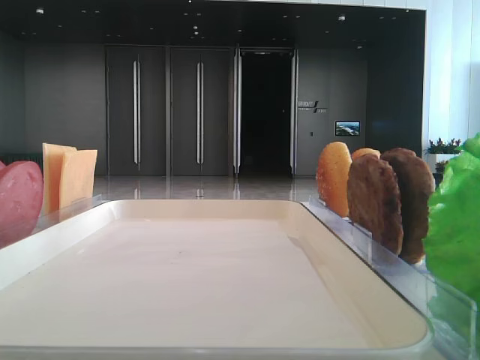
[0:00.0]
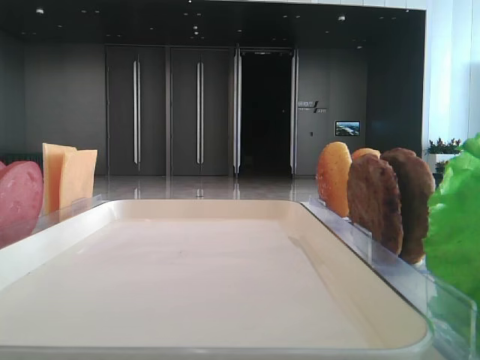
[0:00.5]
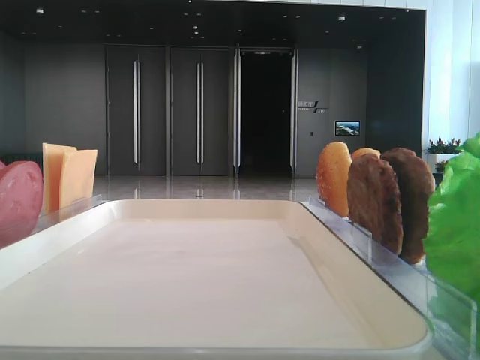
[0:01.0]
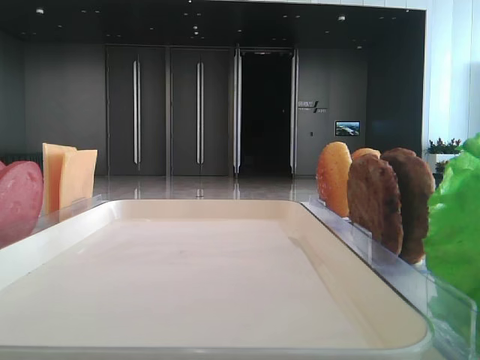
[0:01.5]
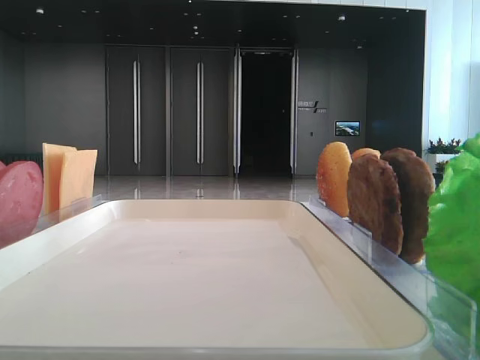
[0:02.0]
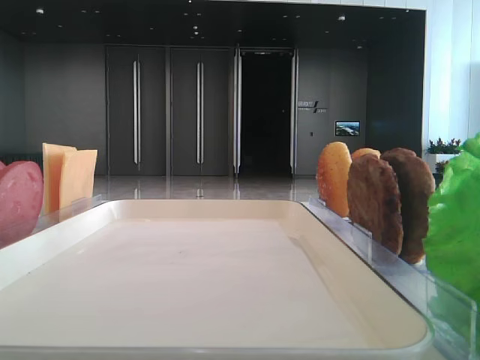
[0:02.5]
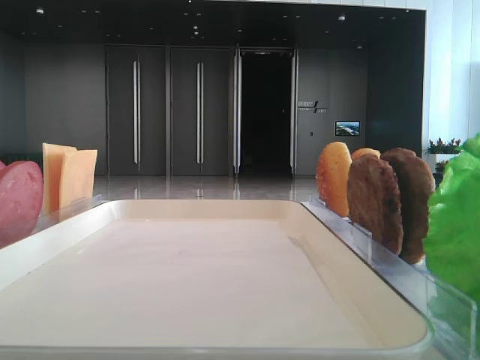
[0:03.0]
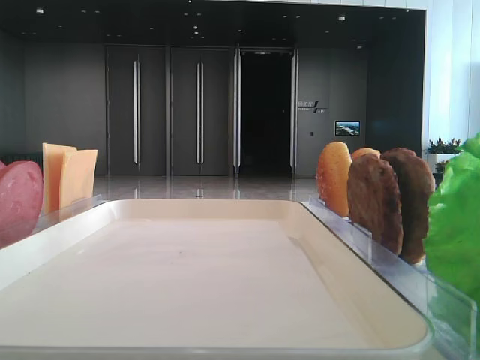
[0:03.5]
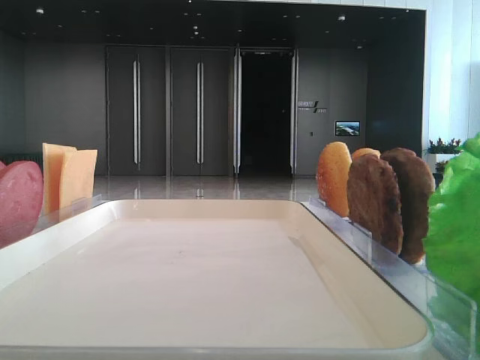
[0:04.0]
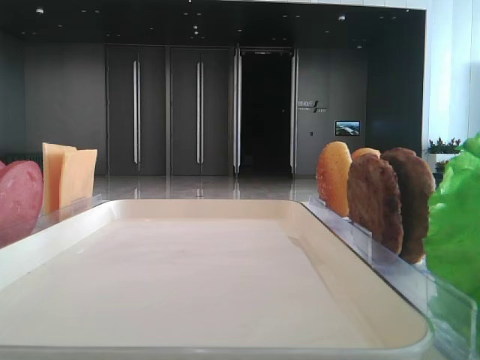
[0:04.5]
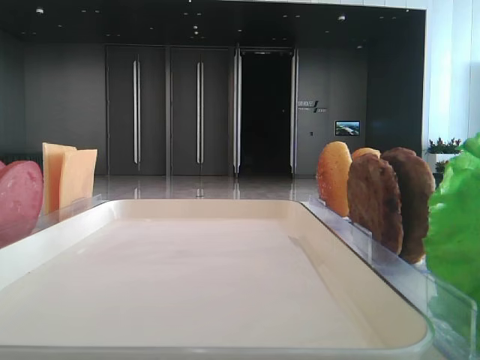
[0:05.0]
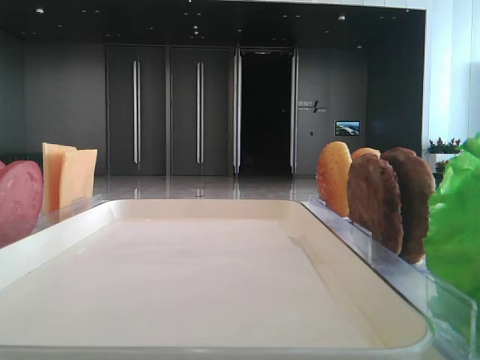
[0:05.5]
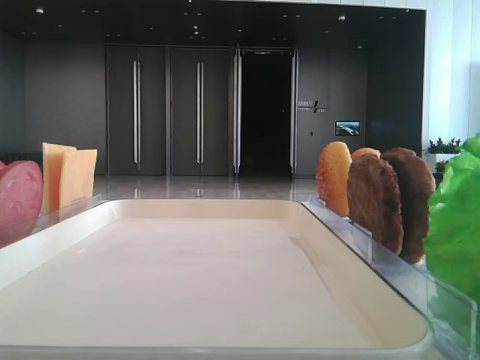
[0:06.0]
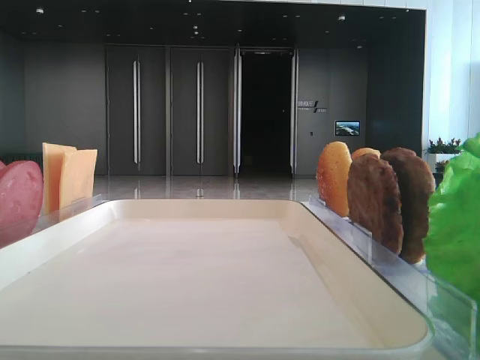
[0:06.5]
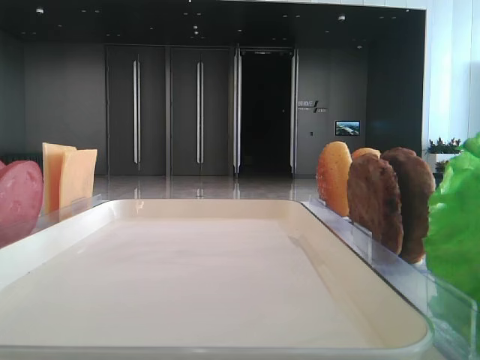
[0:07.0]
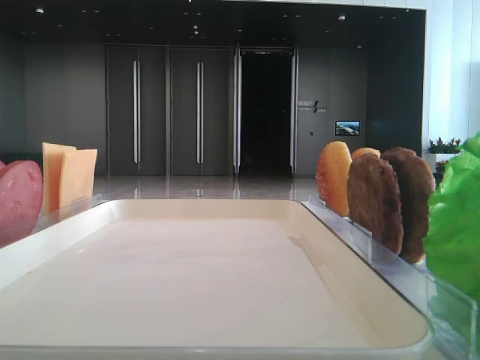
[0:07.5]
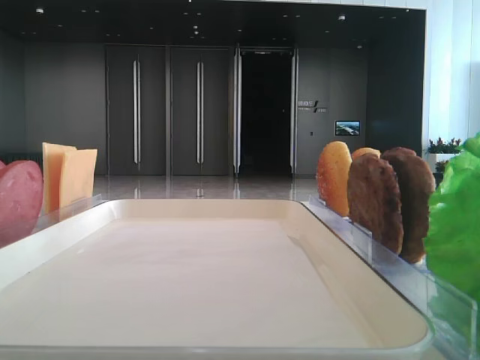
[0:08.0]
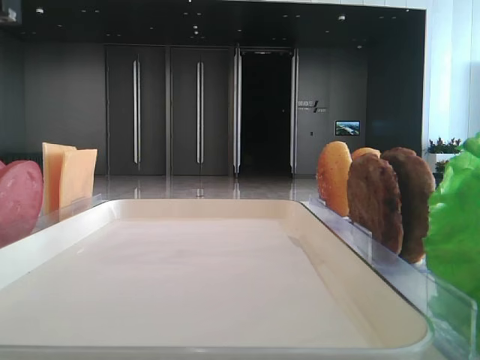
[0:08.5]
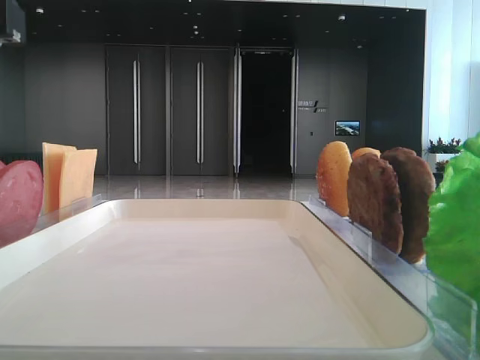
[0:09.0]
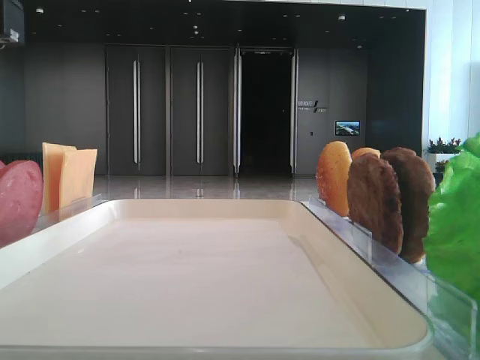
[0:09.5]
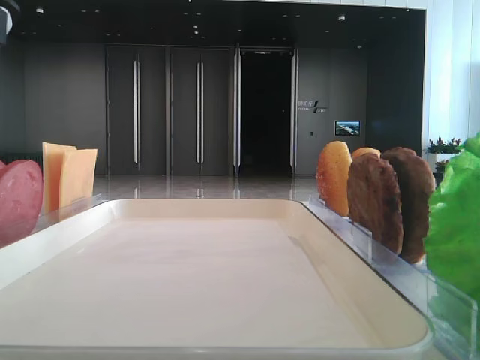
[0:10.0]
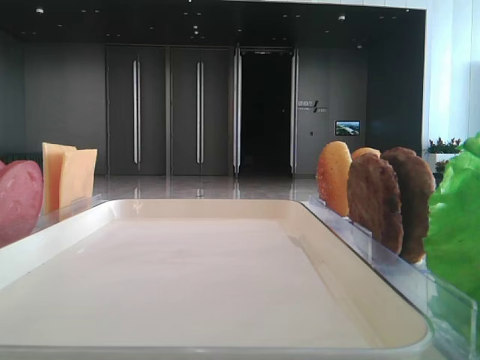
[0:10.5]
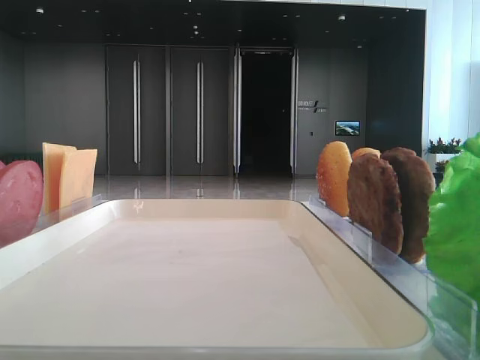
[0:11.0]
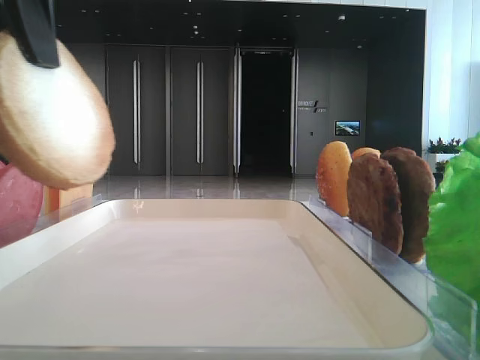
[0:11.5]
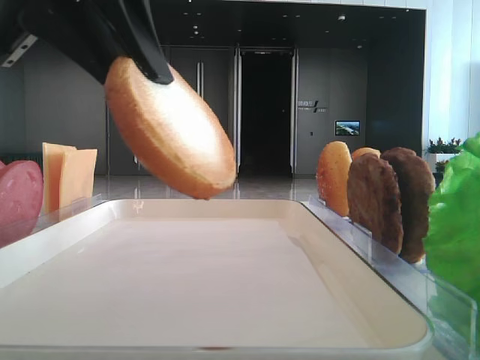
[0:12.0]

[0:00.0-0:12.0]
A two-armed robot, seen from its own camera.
0:10.0 to 0:12.0: The left gripper is displaced to the right by about 5 cm.

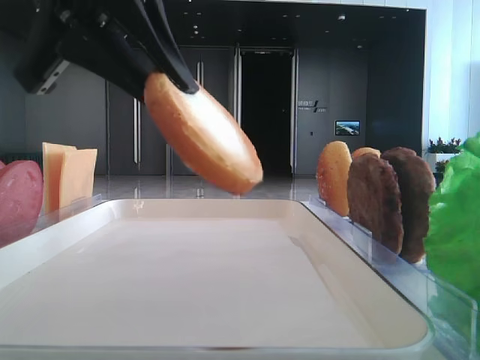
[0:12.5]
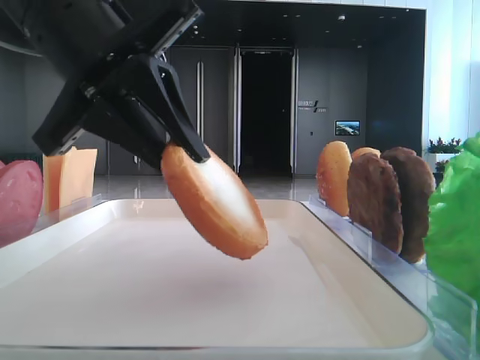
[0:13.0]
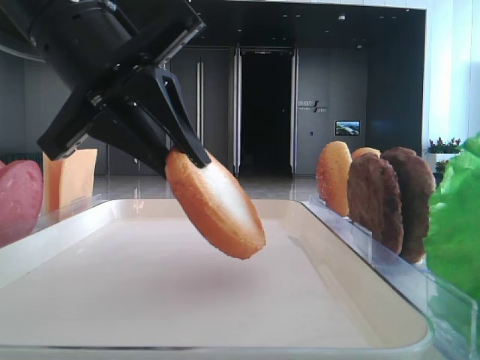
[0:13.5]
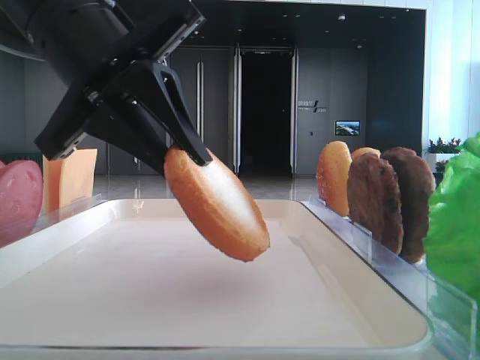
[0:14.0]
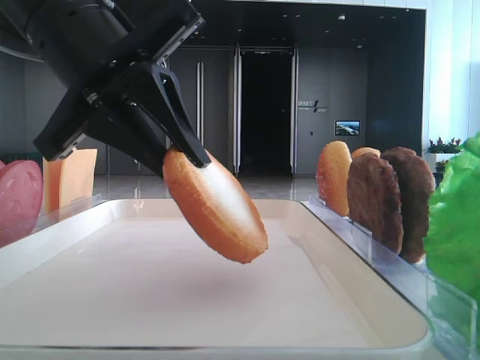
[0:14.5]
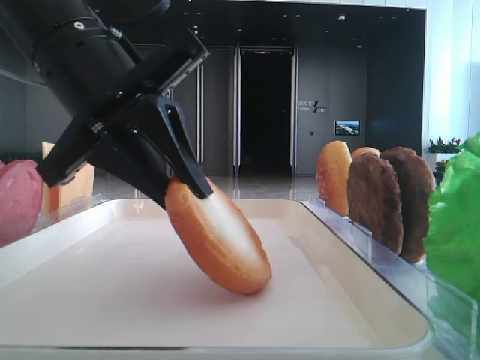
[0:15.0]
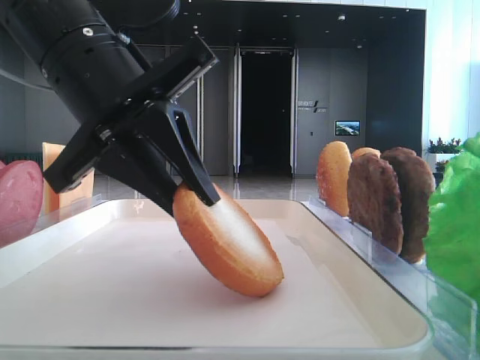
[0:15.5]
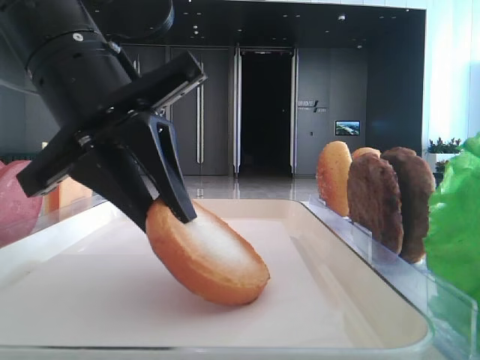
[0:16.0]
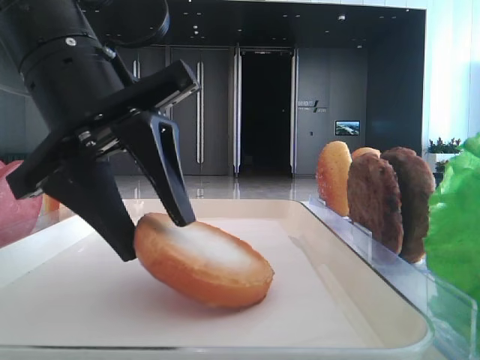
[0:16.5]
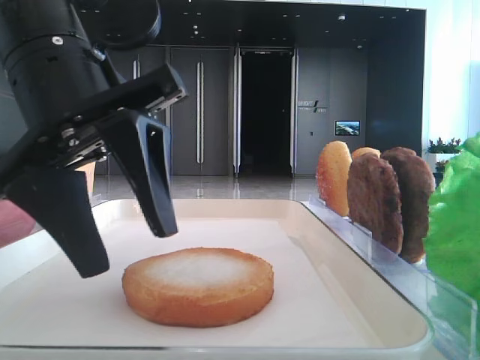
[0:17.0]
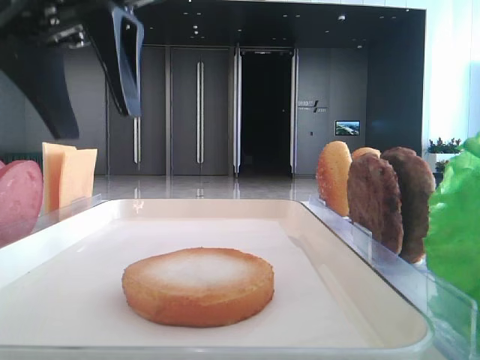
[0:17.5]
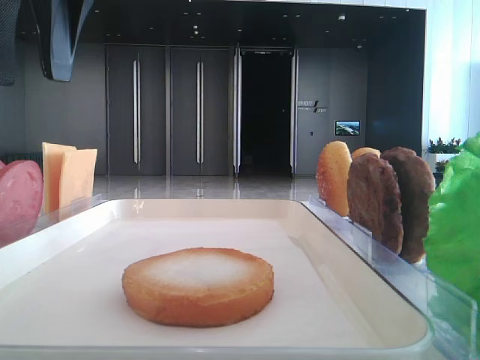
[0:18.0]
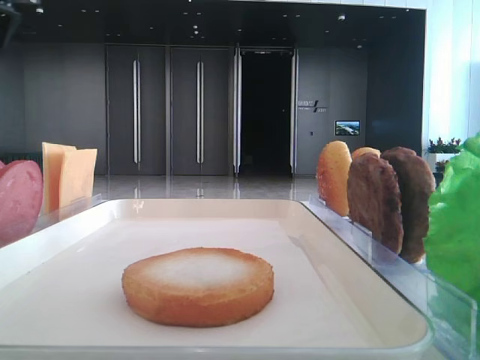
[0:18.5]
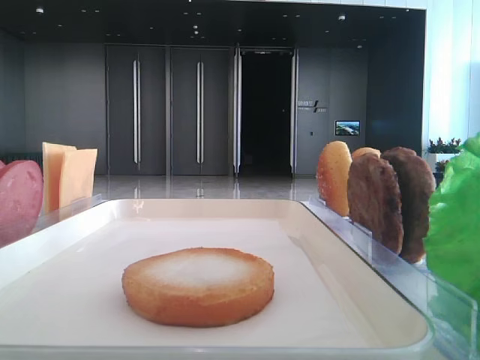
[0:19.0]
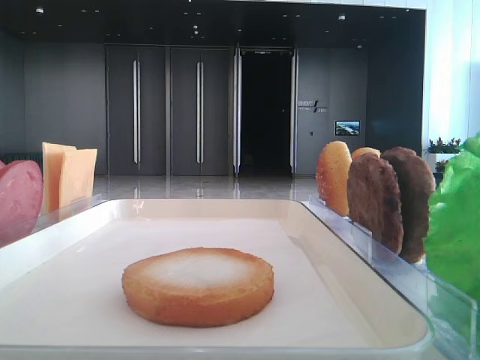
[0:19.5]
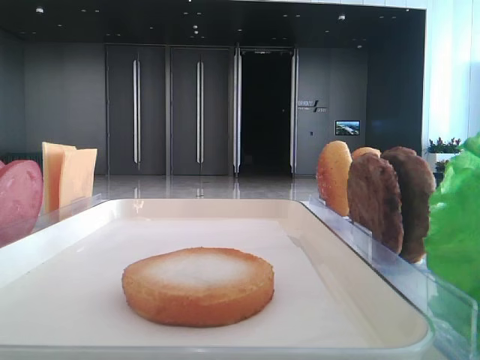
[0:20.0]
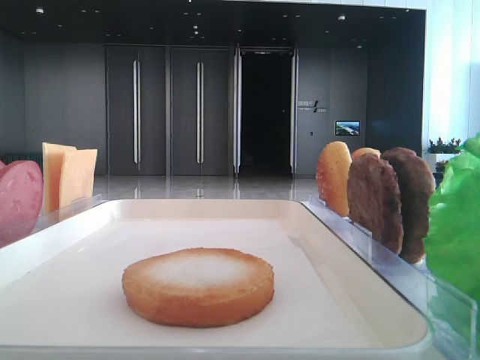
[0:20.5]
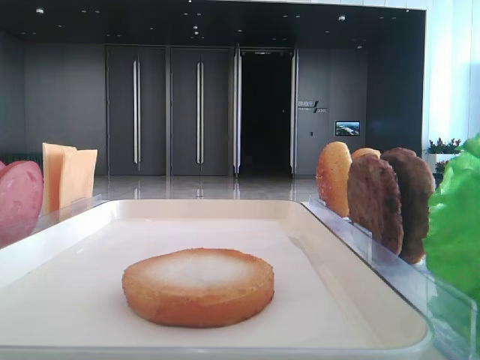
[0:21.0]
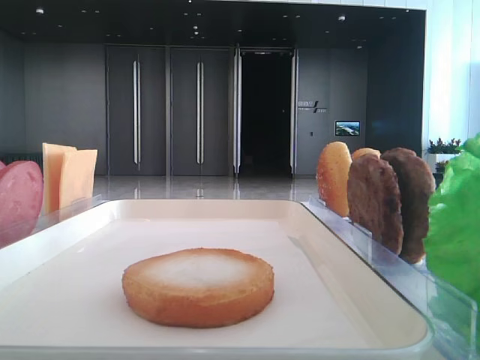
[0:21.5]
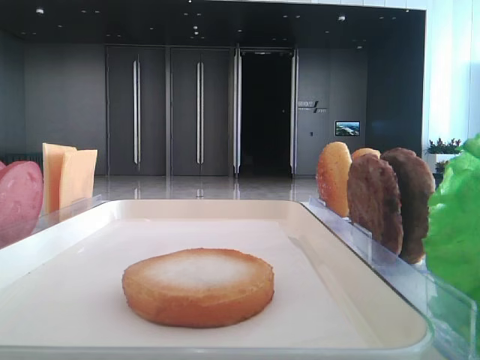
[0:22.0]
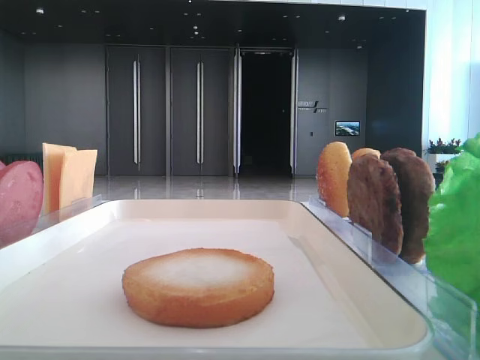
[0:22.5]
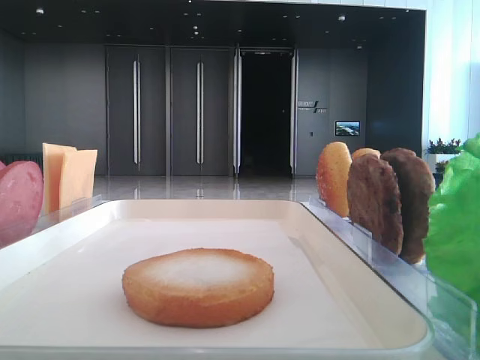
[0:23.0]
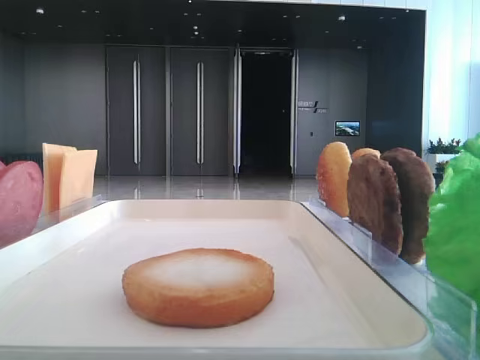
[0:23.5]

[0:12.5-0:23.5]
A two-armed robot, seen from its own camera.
Step, 0:12.5 to 0:16.5: Place the bread on the tray with the left hand.
0:12.5 to 0:14.5: There are only small adjustments of the grippers.
0:14.5 to 0:16.0: The grippers make only small movements.
0:16.0 to 0:18.0: The left gripper moves upward, some 15 cm, and opens up.
0:18.0 to 0:20.0: The left gripper heads to the left, covering about 15 cm.
